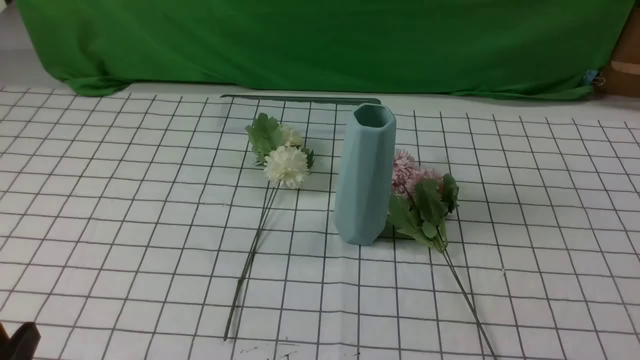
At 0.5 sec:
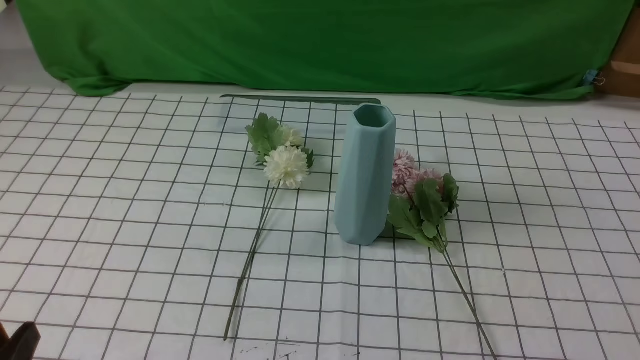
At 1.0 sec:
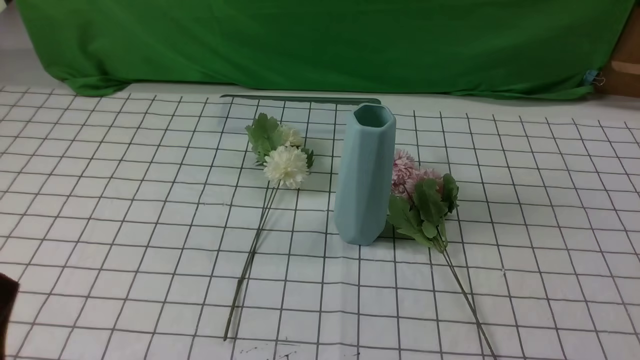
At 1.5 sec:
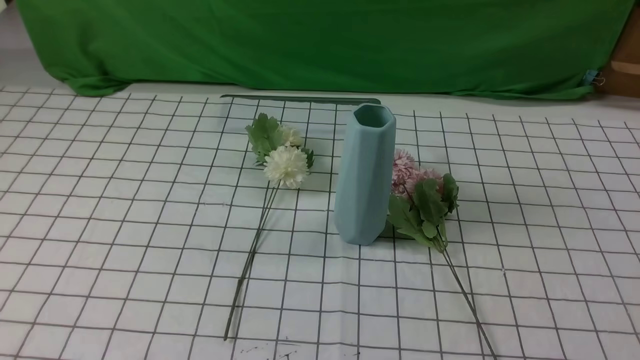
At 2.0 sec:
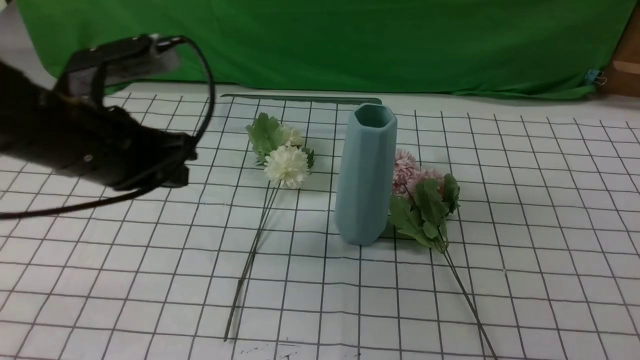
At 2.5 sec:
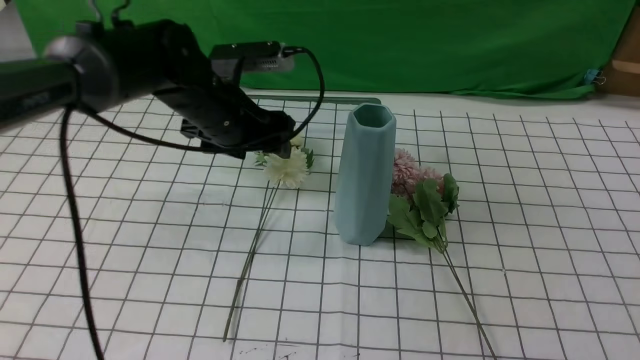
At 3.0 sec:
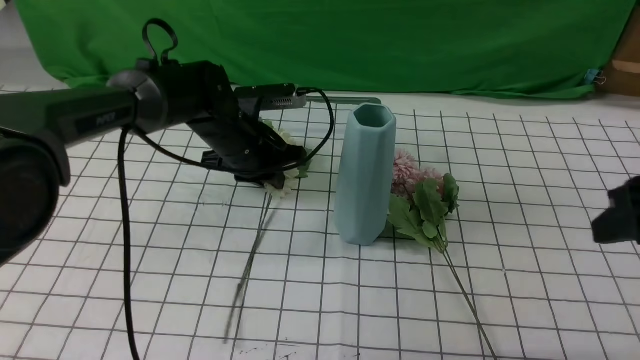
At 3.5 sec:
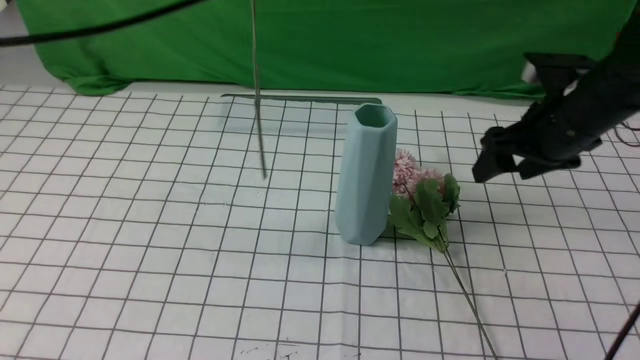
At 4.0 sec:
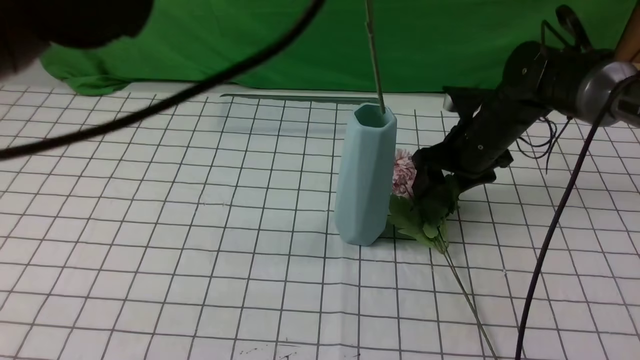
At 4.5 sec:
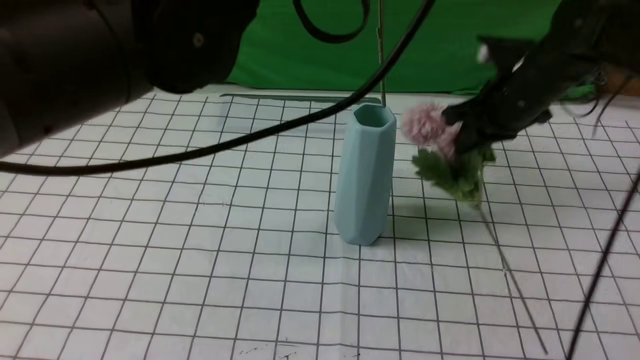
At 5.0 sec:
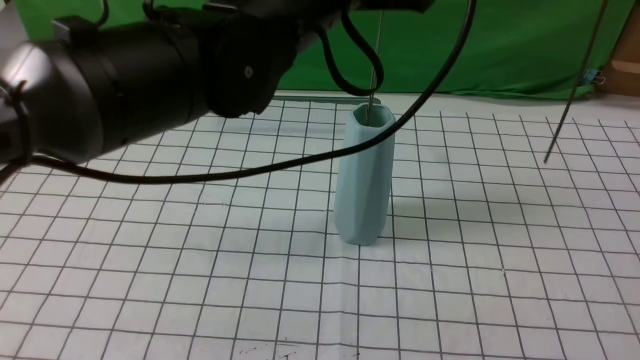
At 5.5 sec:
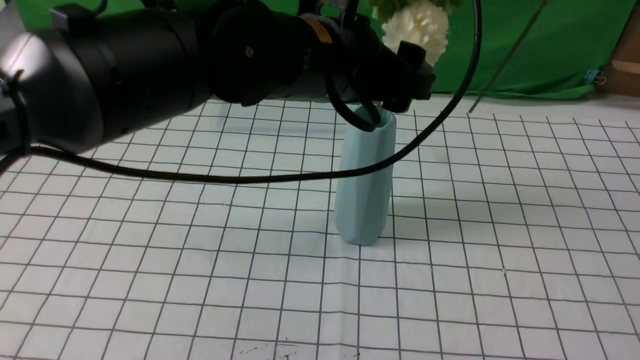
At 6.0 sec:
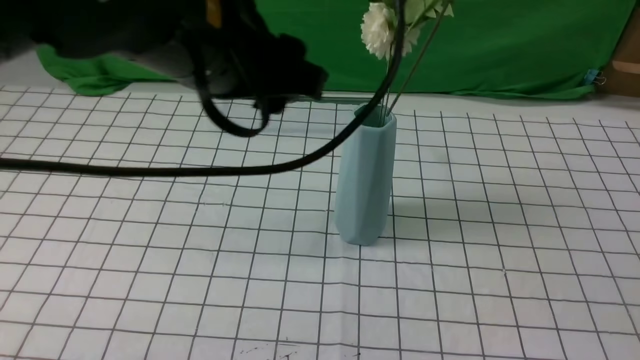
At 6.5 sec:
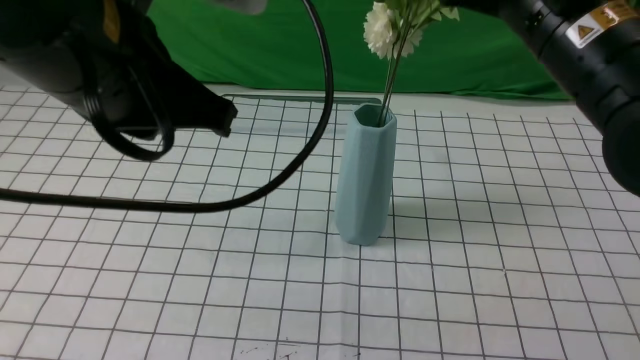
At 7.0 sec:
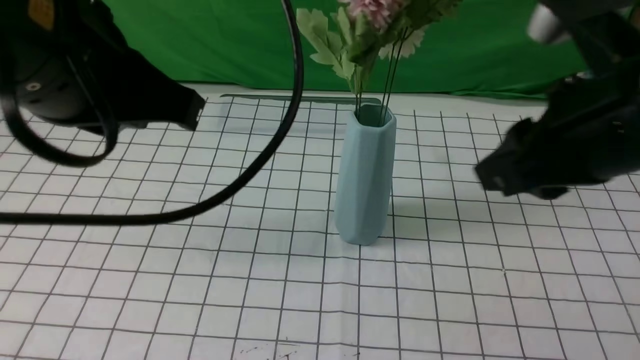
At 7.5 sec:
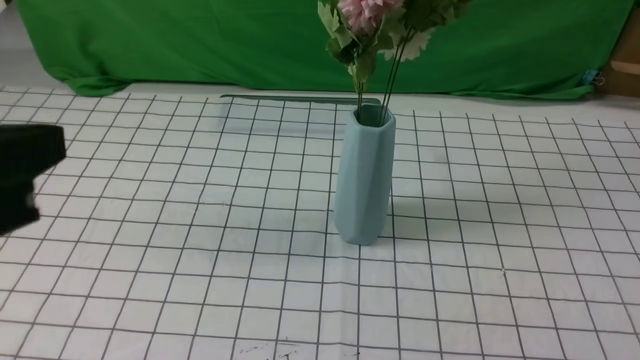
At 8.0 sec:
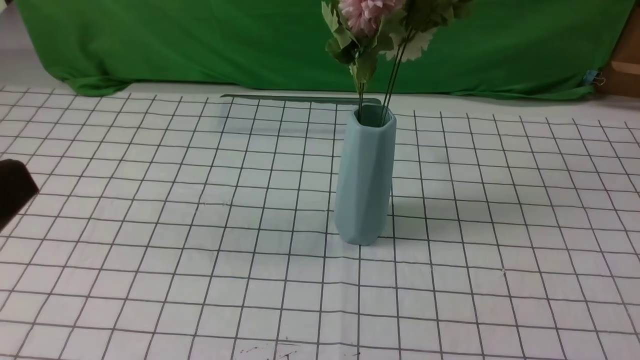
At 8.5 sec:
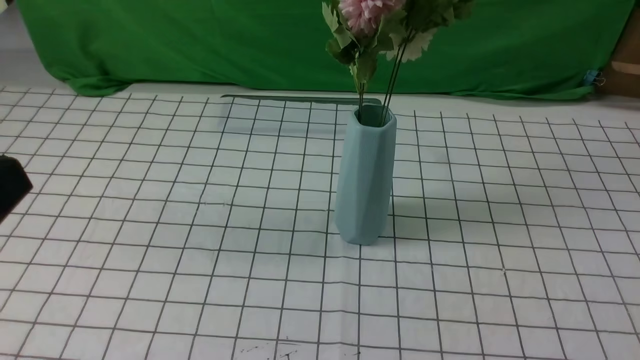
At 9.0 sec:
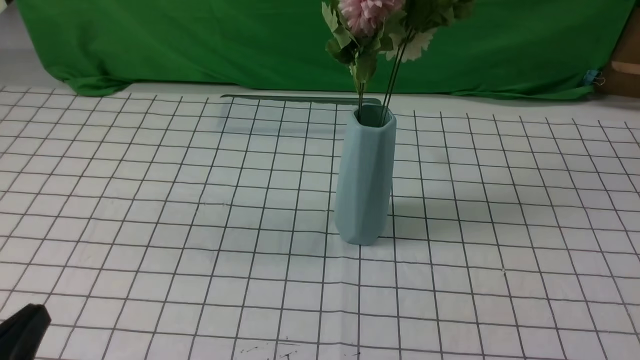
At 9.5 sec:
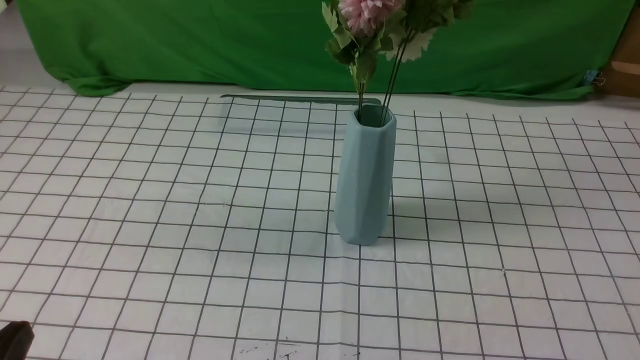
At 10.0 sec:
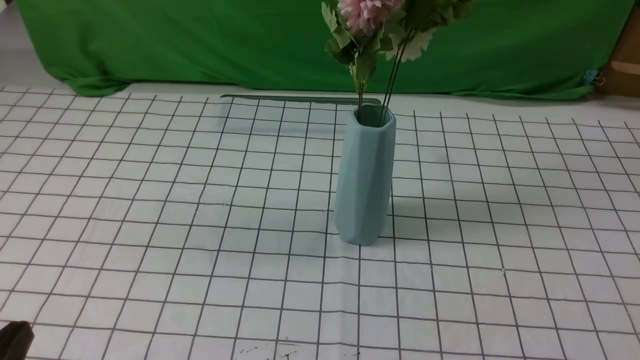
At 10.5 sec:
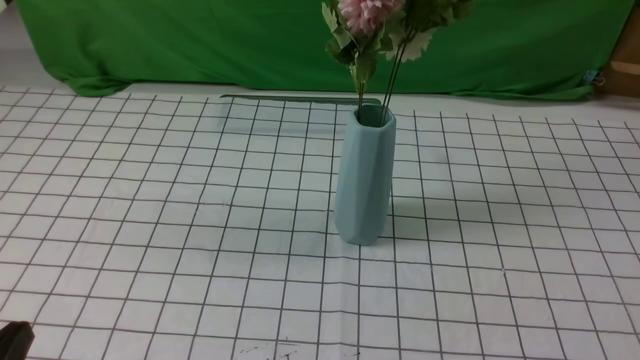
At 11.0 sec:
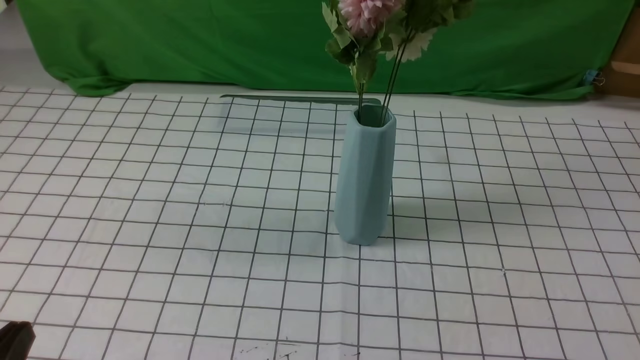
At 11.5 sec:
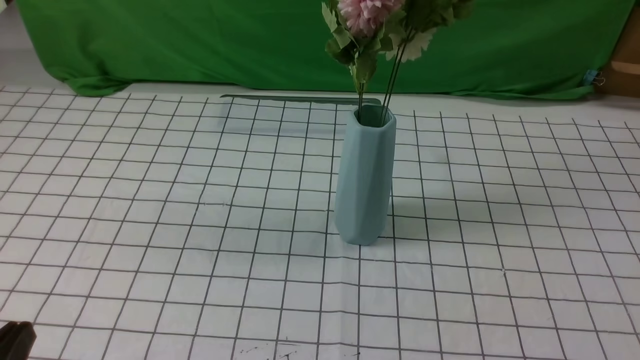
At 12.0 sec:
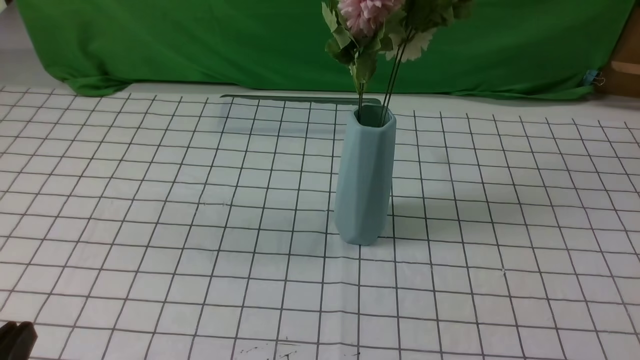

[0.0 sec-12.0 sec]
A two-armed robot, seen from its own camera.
Task of the whole recording: insert the flowers into the vase on the table with the white tablecloth.
Step, 0.0 sec to 6.5 sec: Put the flowers in the vase with both hands.
0.0 sec to 2.0 sec: The right gripper goes approximately 5 cm upward. The left gripper moves forward and upward, some 25 cm, and closes its fingers.
2.0 sec to 4.0 sec: The right gripper is displaced forward by about 40 cm, and opens up; the left gripper goes about 20 cm upward and to the right, and opens, then closes again.
4.0 sec to 6.0 sec: The right gripper moves upward and backward, some 30 cm, and closes, while the left gripper is displaced downward by roughly 10 cm, and opens.
6.0 sec to 8.0 sec: The right gripper goes roughly 25 cm backward and to the right; the left gripper travels backward and to the left by approximately 25 cm, and closes.
8.0 sec to 10.0 sec: The left gripper goes approximately 15 cm downward.

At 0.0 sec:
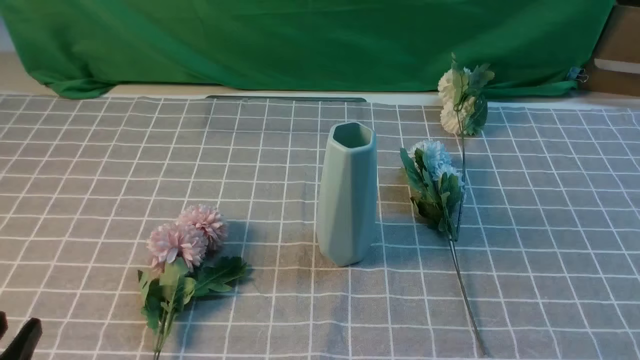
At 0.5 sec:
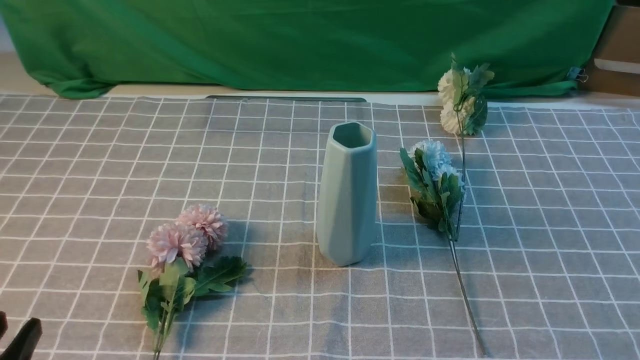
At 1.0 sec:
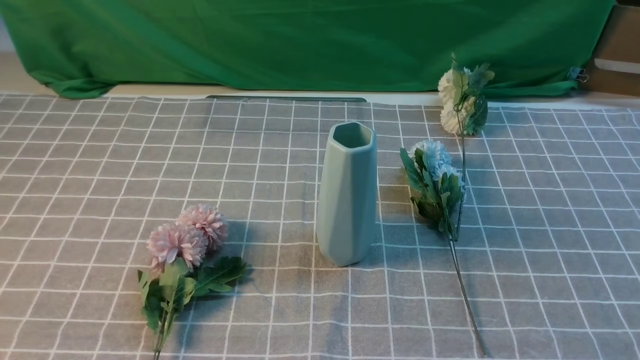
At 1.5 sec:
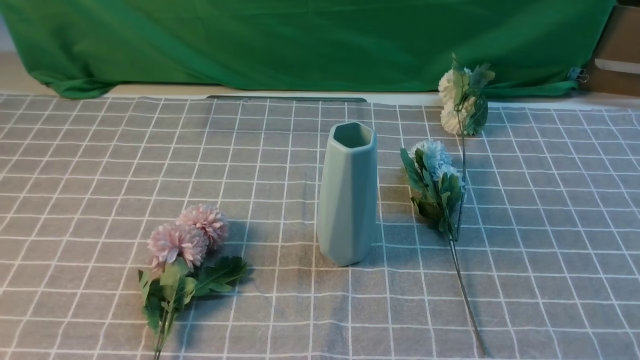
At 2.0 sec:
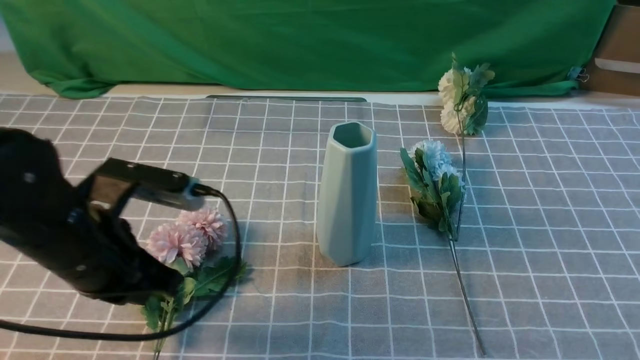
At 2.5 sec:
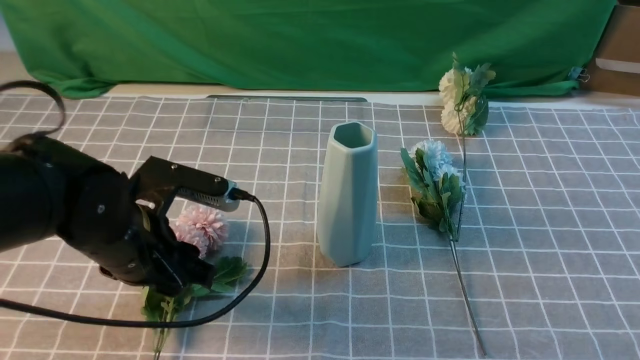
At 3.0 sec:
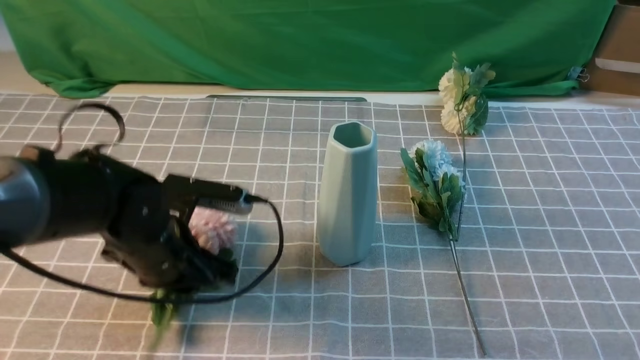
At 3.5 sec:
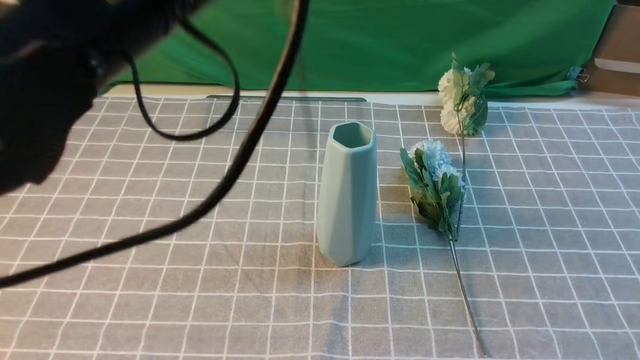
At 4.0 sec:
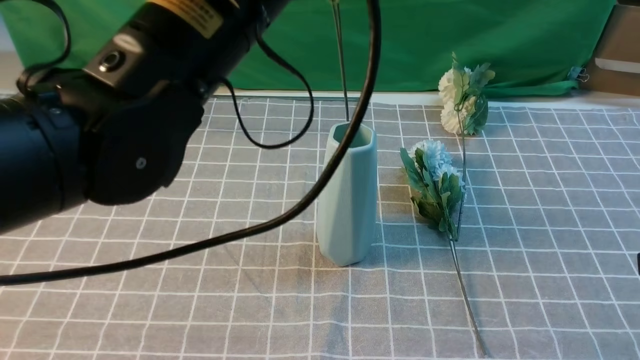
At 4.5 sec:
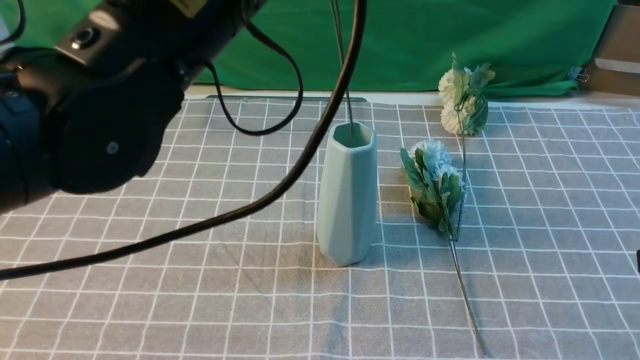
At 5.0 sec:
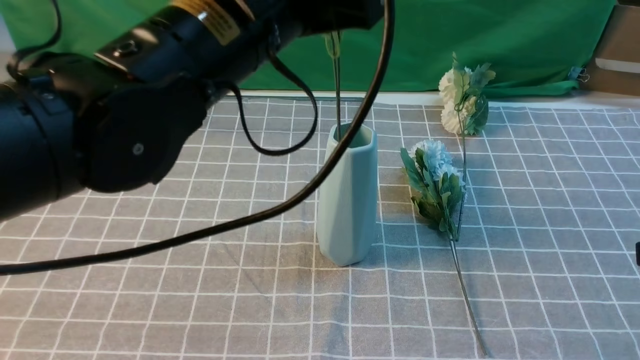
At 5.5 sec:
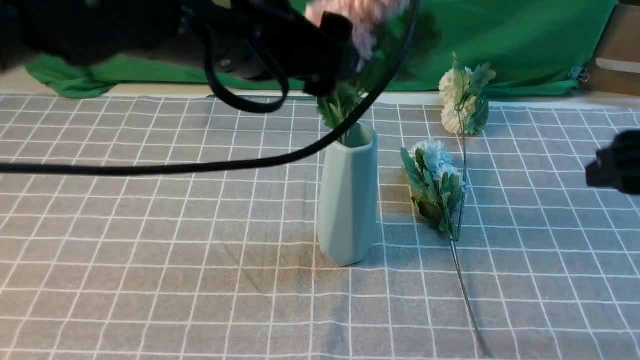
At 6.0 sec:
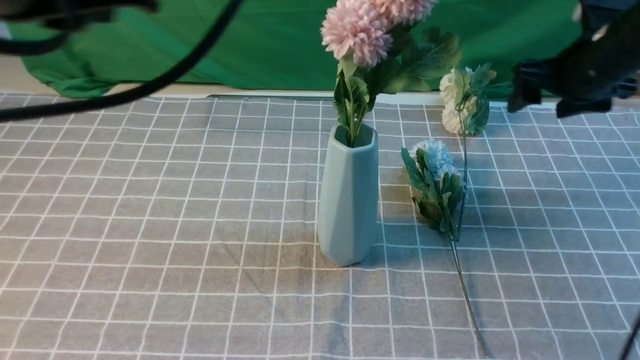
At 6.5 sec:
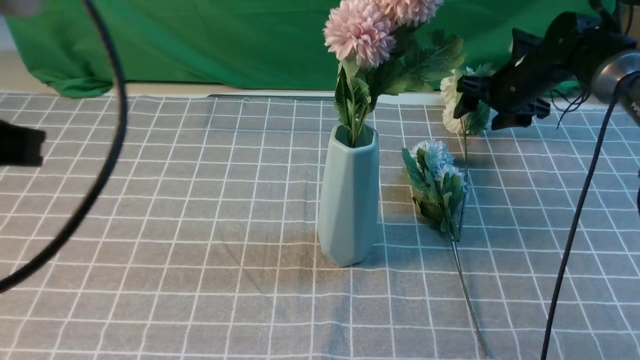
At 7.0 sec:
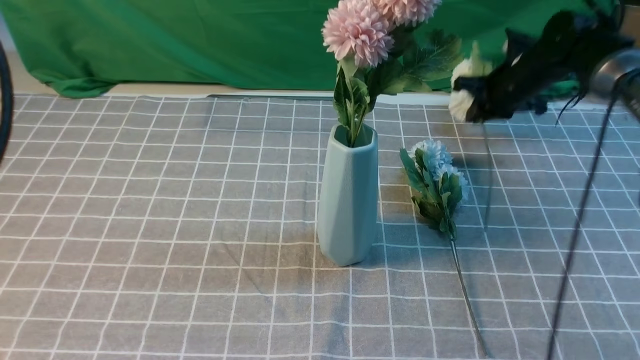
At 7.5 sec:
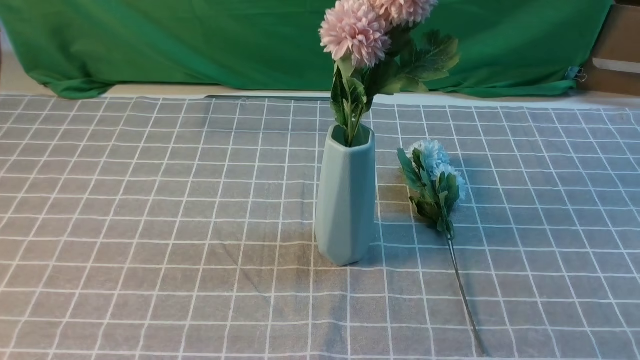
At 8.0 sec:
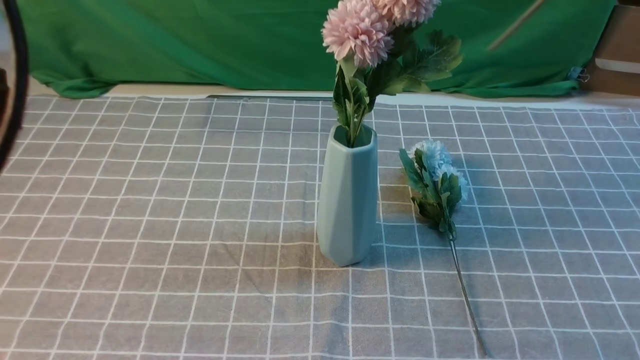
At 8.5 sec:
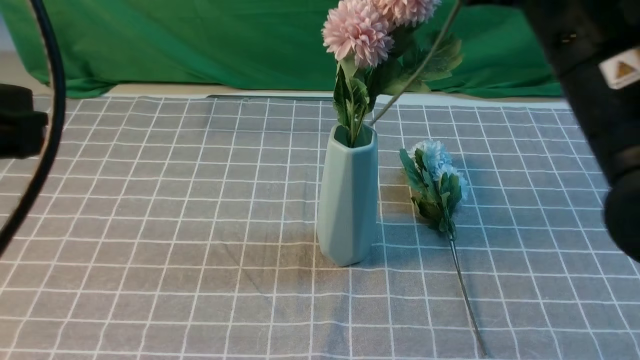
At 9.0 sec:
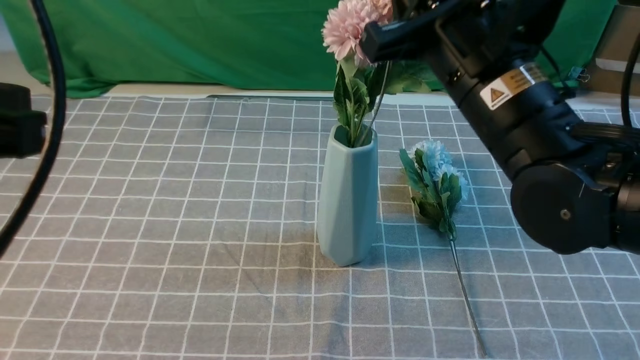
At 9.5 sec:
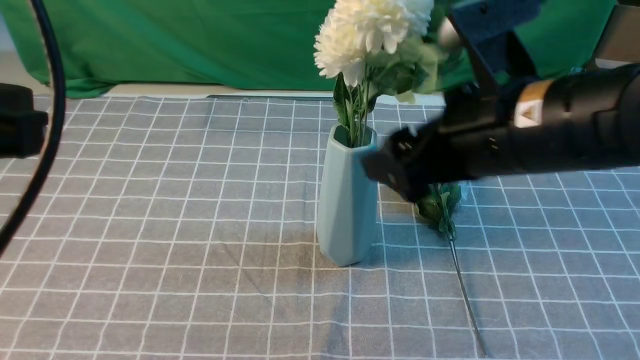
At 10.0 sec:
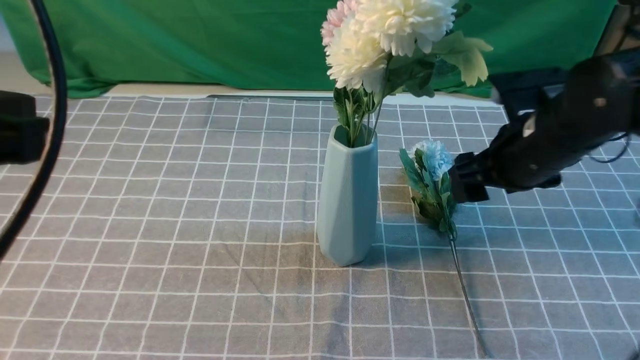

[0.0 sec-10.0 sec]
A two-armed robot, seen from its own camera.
Task of the whole recording: insert the flowers into the vase on the table with the grey tablecloth.
Step, 0.0 sec to 3.0 sec: use the left arm to grab a bunch of fresh flowers.
Step, 3.5 sec to 5.5 sec: use the left arm to insert the flowers into the vase.
Step, 6.0 sec to 6.5 sec: use the right arm to grab a bunch of fresh flowers.
Step, 7.0 sec to 9.0 sec: use the right arm to insert the flowers into the vase.
0.0 sec to 2.0 sec: The left gripper travels forward by some 20 cm, and closes up, while the right gripper moves upward, approximately 10 cm.
2.0 sec to 4.0 sec: The right gripper is displaced forward by approximately 10 cm, while the left gripper heads upward and to the right, covering about 20 cm, and opens, then closes once more.
4.0 sec to 6.0 sec: The right gripper shifts some 30 cm forward, and opens, while the left gripper heads to the left and backward, covering approximately 10 cm, and opens and closes again.
6.0 sec to 8.0 sec: The left gripper travels backward and to the left by some 10 cm; the right gripper goes up and down, roughly 40 cm each way, reversing 2 times, and closes.
8.0 sec to 10.0 sec: The right gripper moves downward and forward, roughly 30 cm, and opens up.
